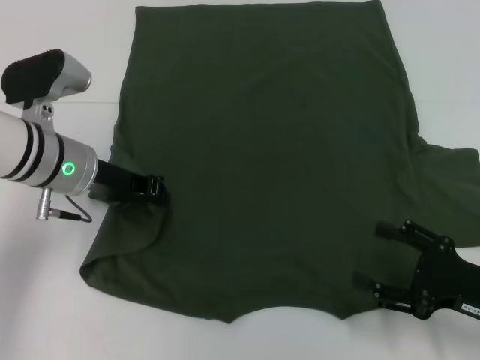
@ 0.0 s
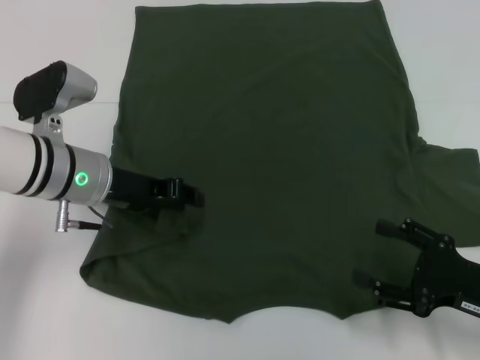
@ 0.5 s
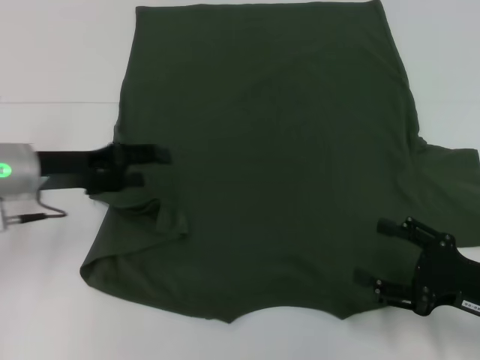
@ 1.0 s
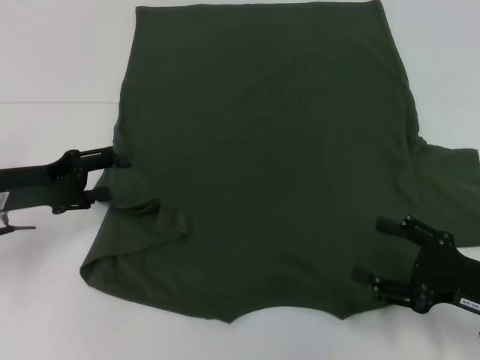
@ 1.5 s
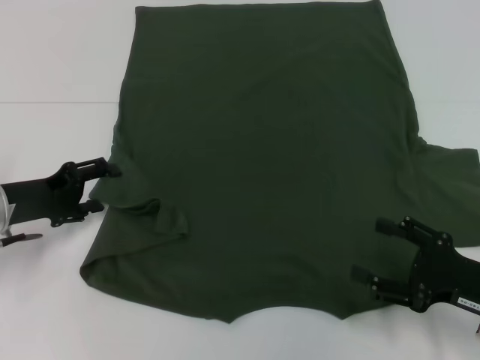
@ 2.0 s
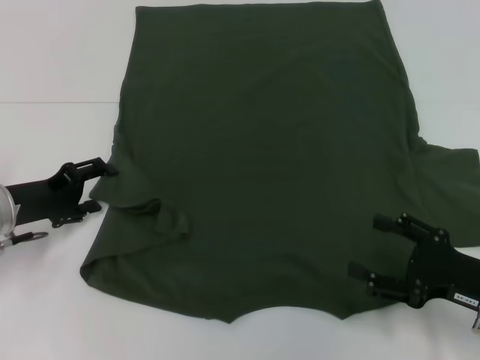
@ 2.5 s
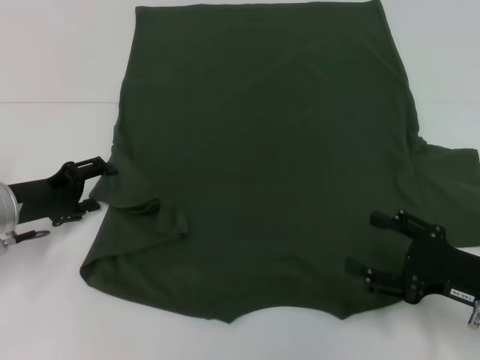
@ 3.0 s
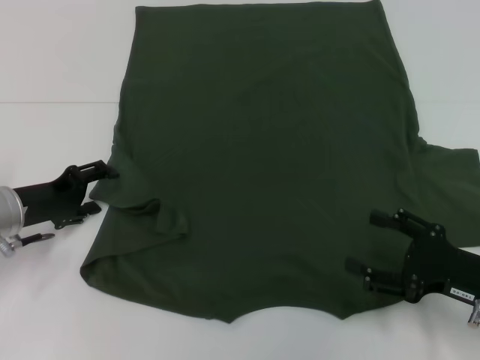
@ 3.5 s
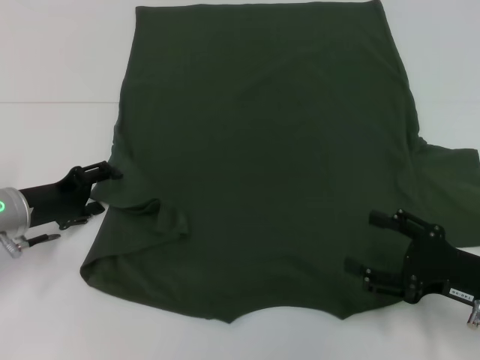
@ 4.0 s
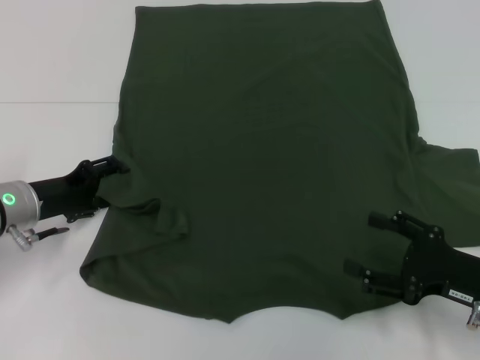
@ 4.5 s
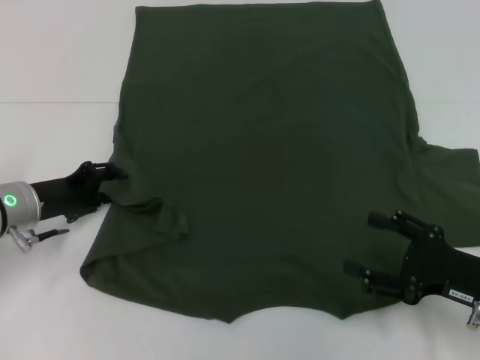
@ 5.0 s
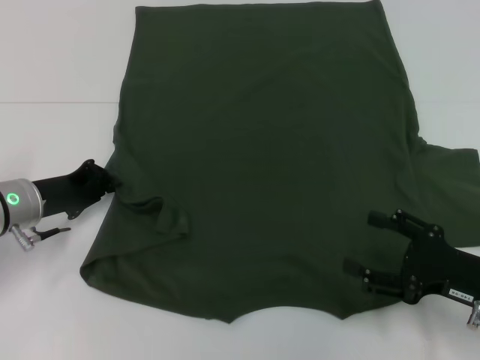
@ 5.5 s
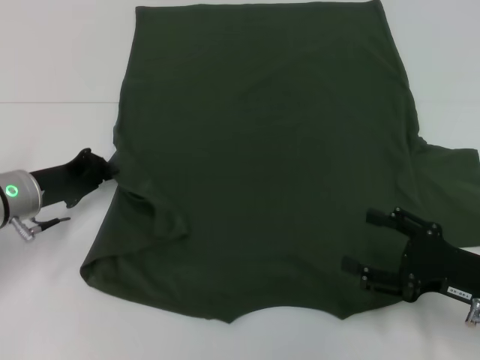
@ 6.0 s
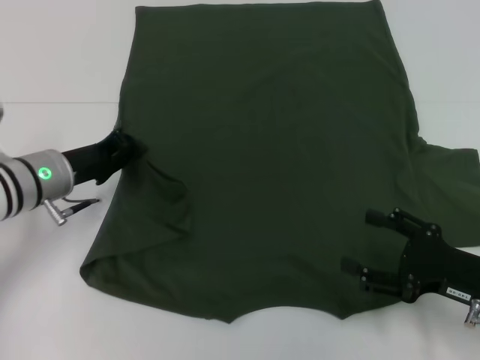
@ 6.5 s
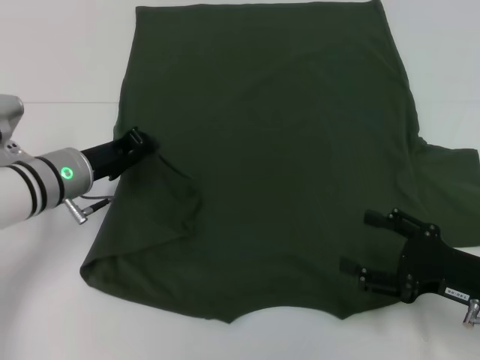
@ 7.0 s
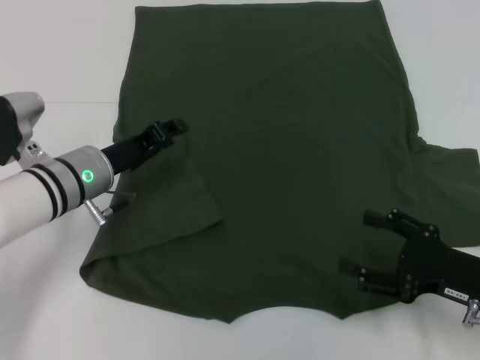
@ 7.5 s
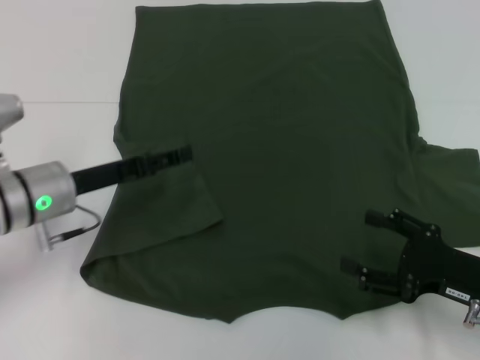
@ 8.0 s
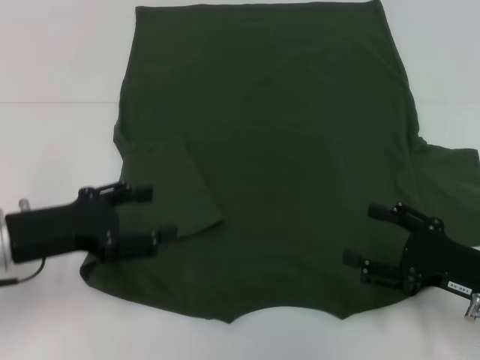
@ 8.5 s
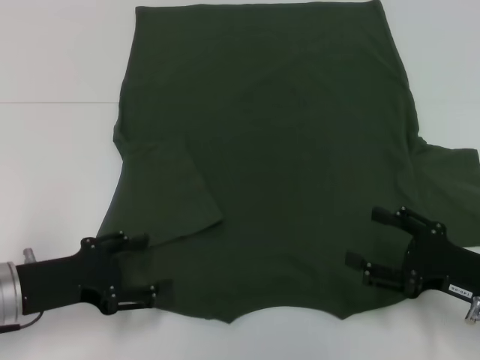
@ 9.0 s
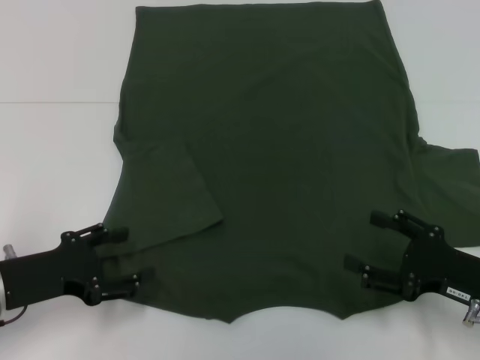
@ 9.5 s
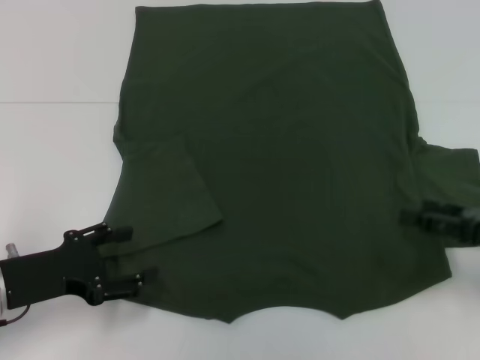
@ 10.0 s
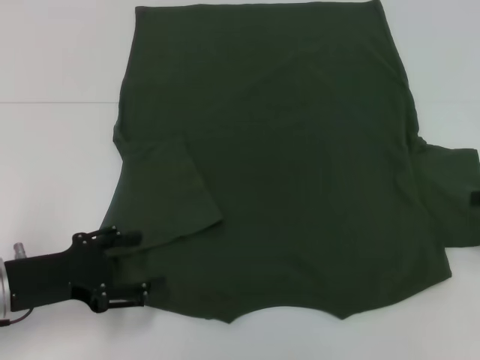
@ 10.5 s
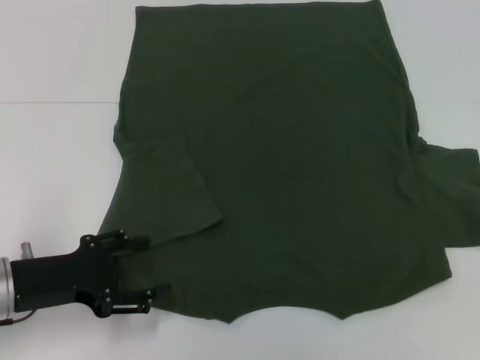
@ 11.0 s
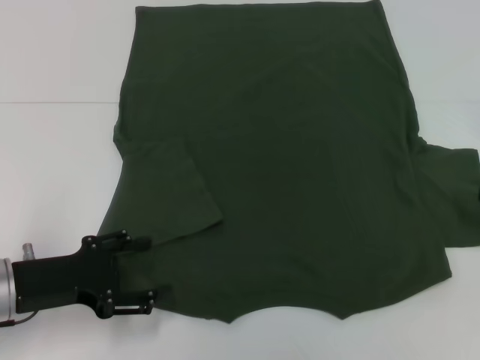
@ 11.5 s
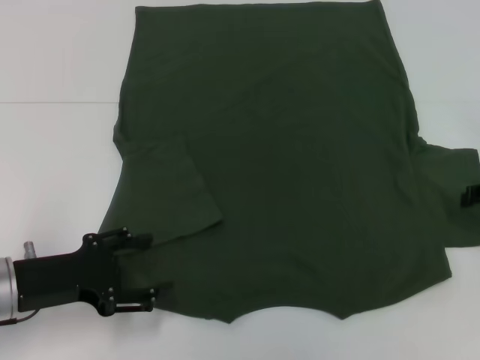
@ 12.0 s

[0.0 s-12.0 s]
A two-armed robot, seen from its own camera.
Step, 0.0 to 2.0 s: Fold the bottom left sleeve with your left hand.
0.0 to 2.0 s: The left gripper goes some 10 cm to the left and downward, and opens.
2.0 to 4.0 s: The grippers make only small movements.
4.0 to 6.0 s: The left gripper closes up.
6.0 to 8.0 s: The left gripper opens up.
8.0 to 10.0 s: The left gripper shifts about 10 cm backward. Meanwhile the right gripper travels to the right by some 5 cm.
10.0 to 12.0 s: The right gripper travels forward by roughly 10 cm.

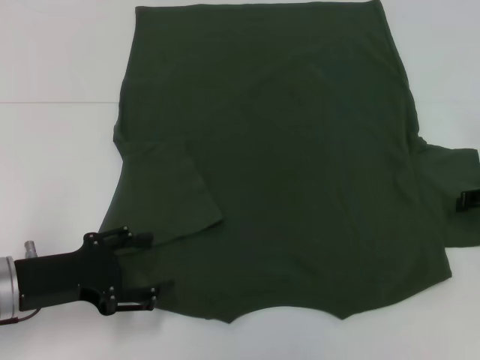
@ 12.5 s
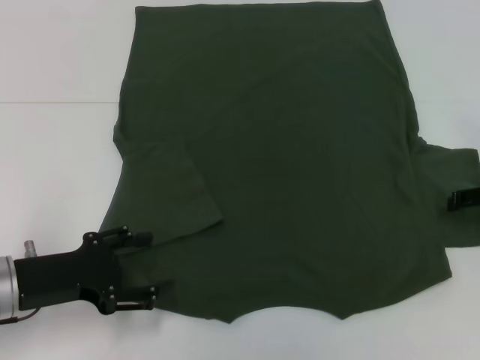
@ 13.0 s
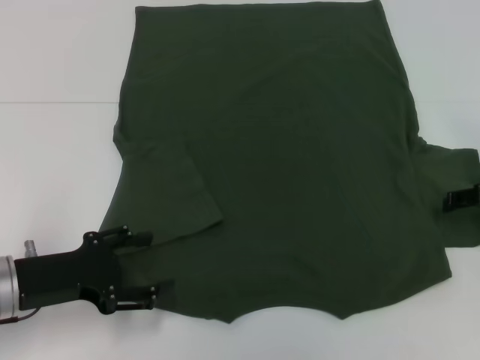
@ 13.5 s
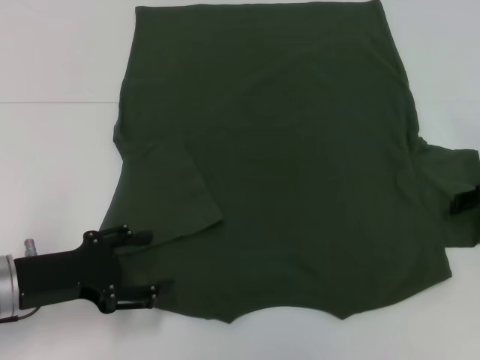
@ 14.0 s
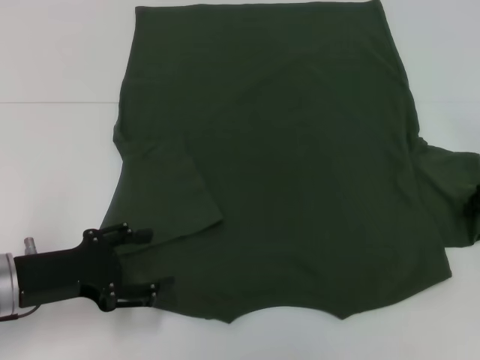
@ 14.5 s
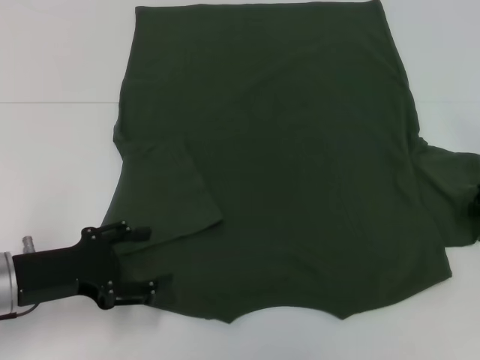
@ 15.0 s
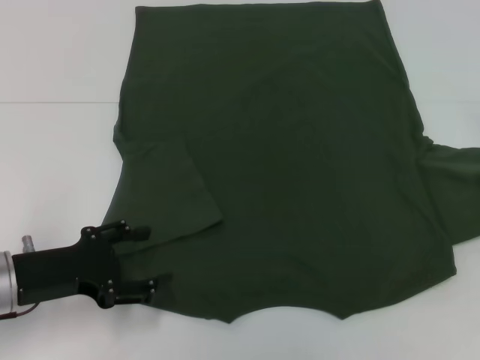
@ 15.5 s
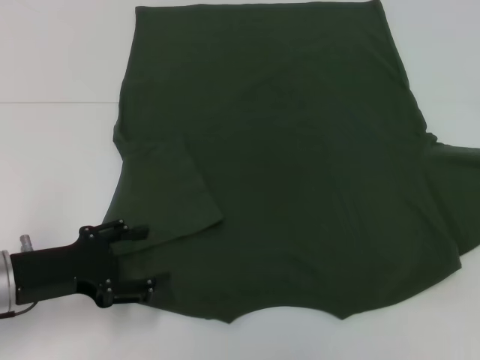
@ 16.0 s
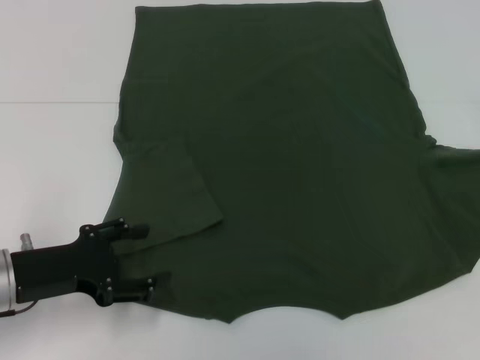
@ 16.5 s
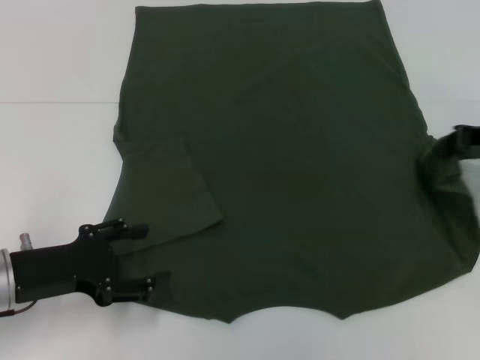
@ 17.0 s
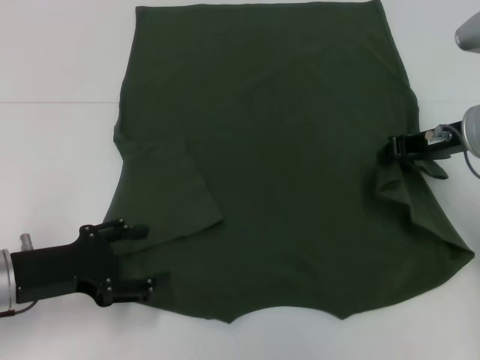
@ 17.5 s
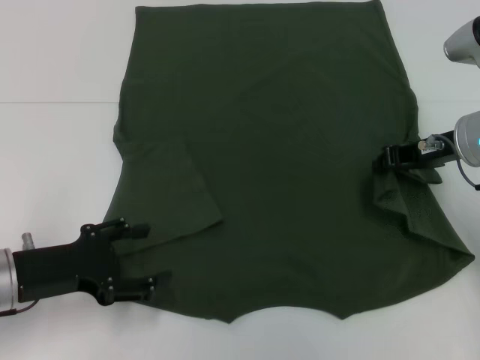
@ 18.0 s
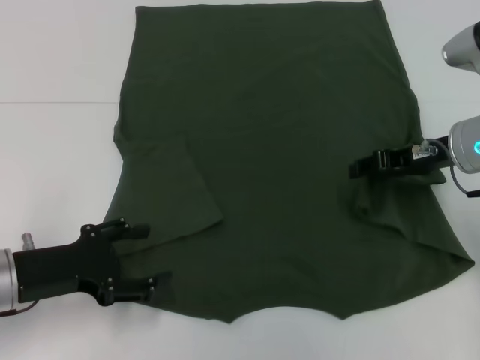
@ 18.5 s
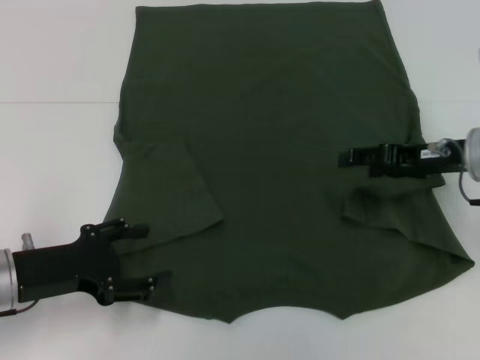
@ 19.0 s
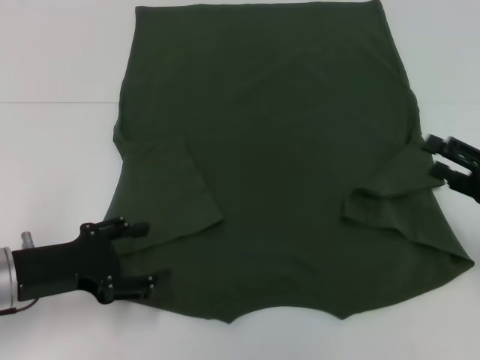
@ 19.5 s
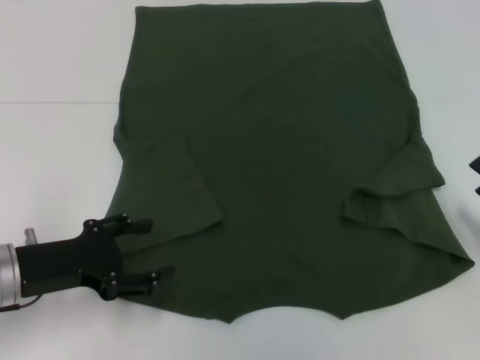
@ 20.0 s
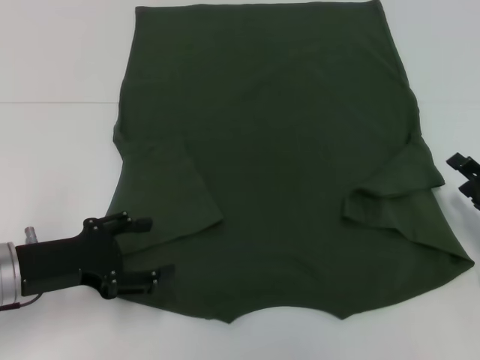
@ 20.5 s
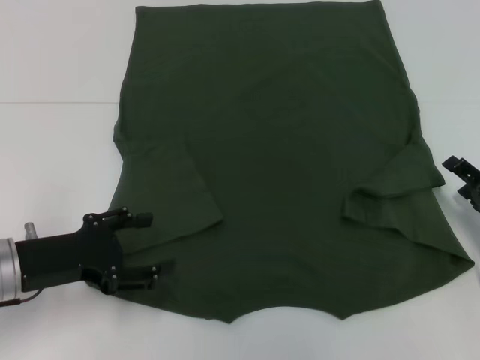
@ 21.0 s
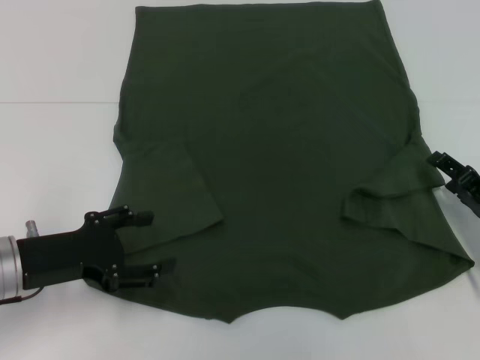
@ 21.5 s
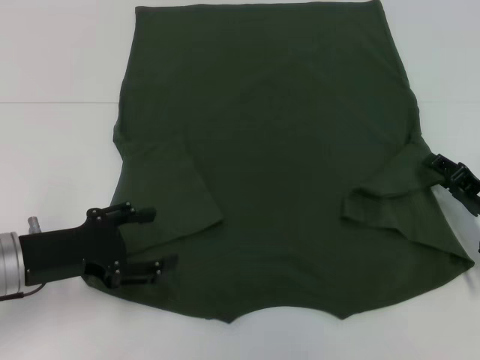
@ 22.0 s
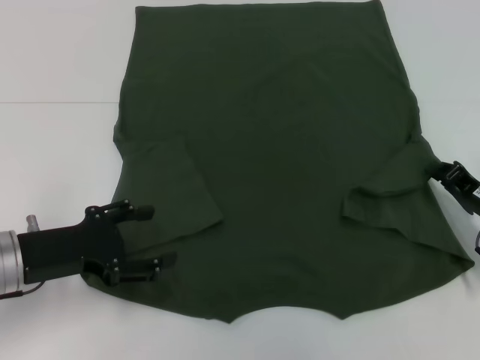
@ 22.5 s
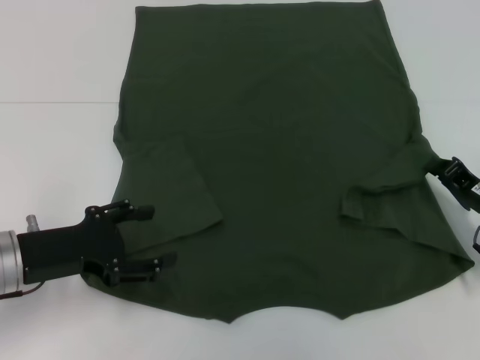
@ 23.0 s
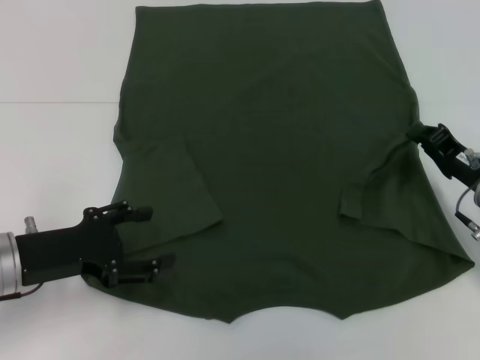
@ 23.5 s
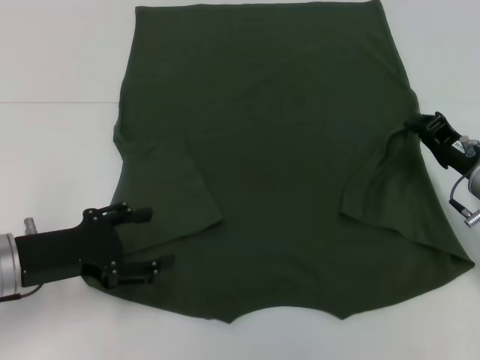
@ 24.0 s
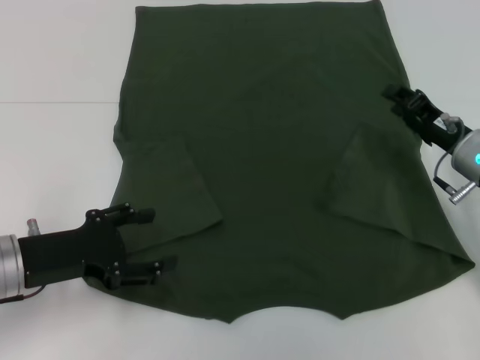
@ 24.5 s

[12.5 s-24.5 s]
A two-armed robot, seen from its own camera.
Step, 12.5 to 18.5 s: Fold the bottom right sleeve with your right hand.
14.5 to 16.5 s: The right gripper moves some 5 cm, and closes its fingers.
16.5 to 18.5 s: The right gripper goes approximately 15 cm to the left.
18.5 to 20.5 s: The right gripper moves downward, backward and to the right, about 20 cm, and opens up.
20.5 to 22.5 s: The right gripper closes up.
22.5 to 24.5 s: The right gripper goes roughly 5 cm forward.

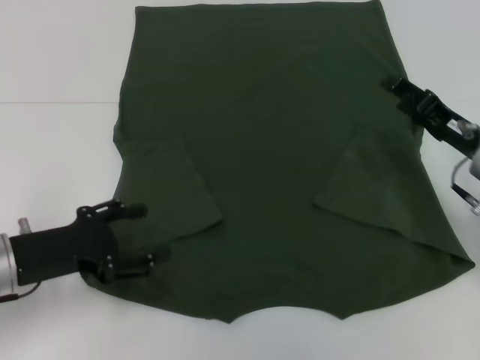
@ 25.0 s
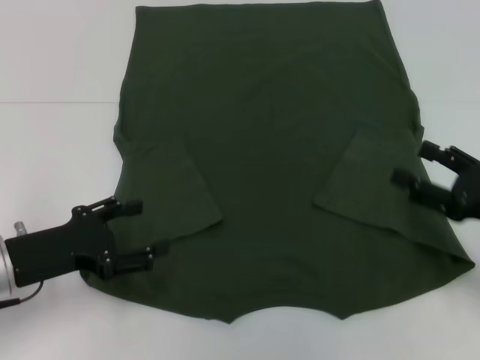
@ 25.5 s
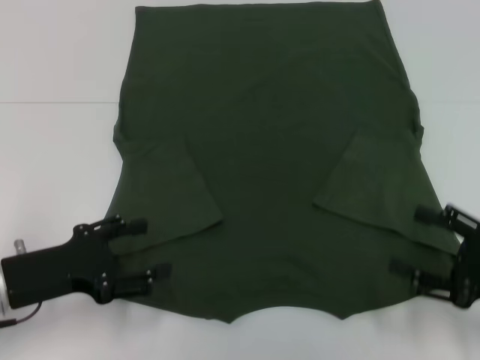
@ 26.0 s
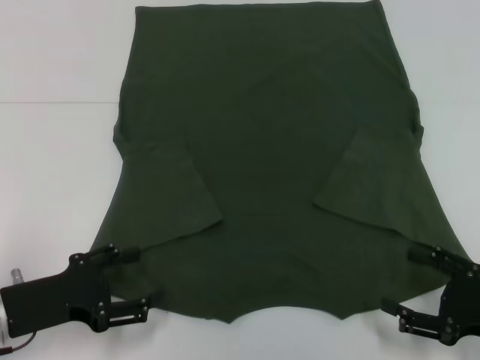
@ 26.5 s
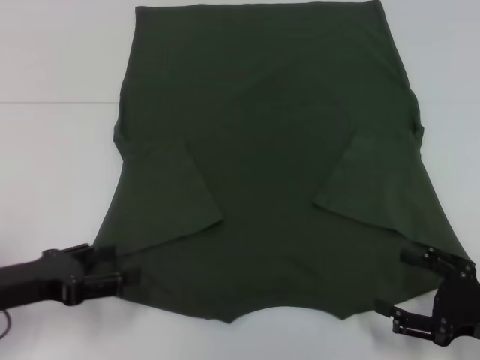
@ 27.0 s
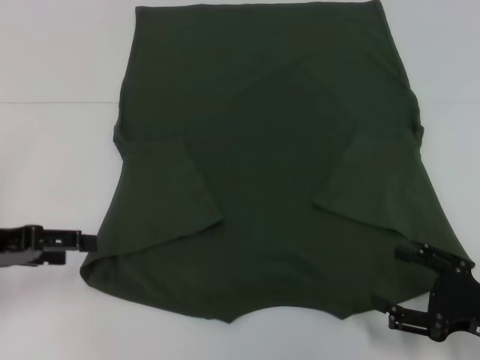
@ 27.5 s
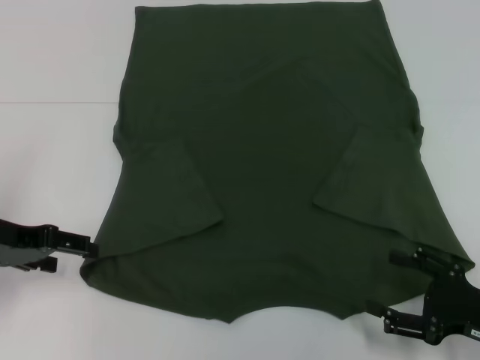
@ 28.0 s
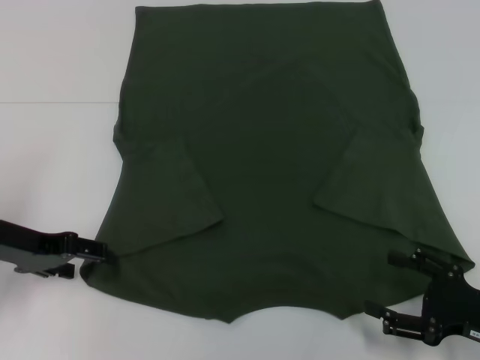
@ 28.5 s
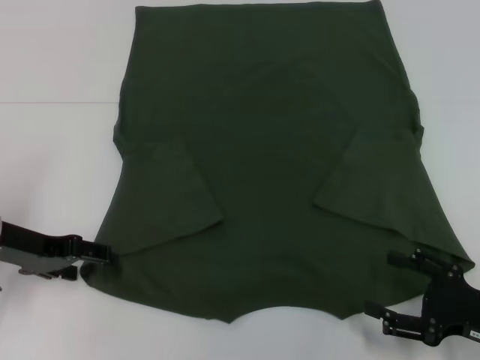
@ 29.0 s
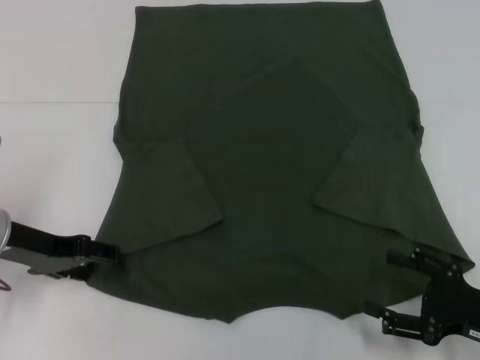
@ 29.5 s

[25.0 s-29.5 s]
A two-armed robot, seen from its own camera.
25.0 to 27.0 s: The right gripper travels backward by about 15 cm.
27.0 to 29.5 s: The left gripper goes approximately 10 cm forward.
